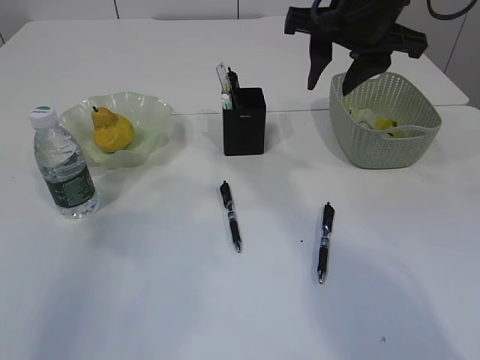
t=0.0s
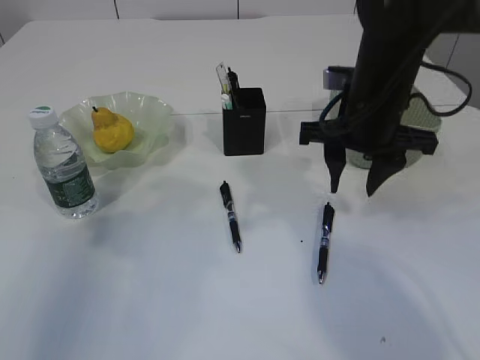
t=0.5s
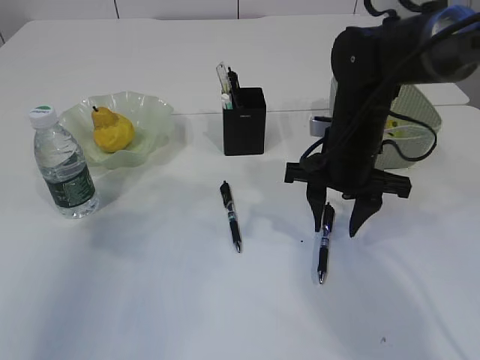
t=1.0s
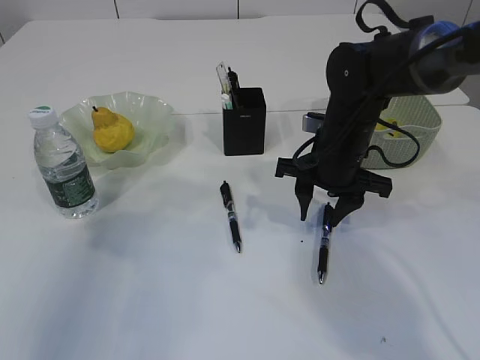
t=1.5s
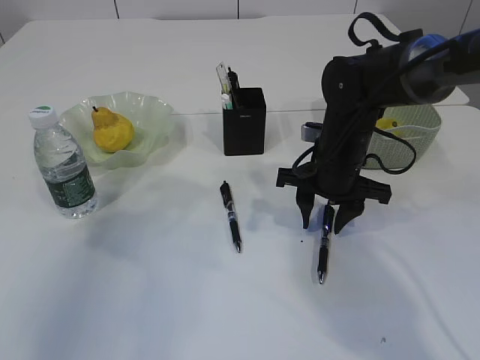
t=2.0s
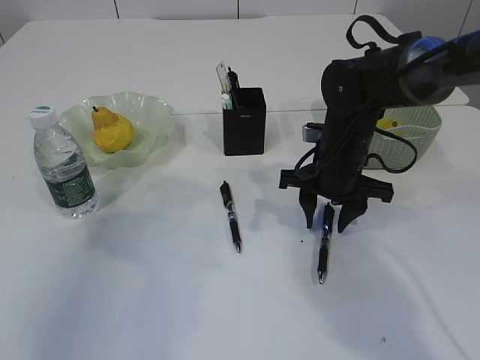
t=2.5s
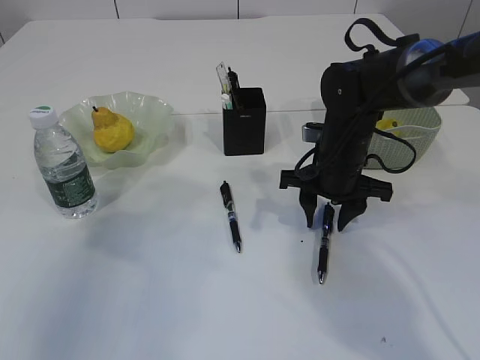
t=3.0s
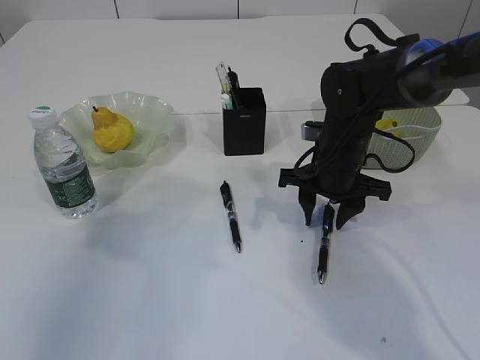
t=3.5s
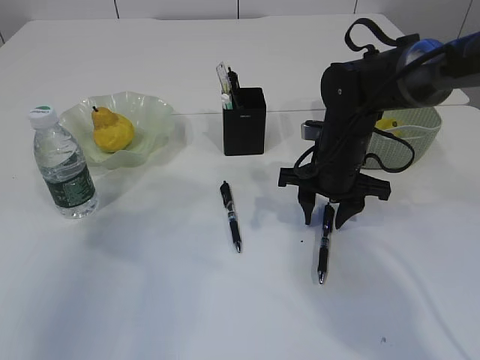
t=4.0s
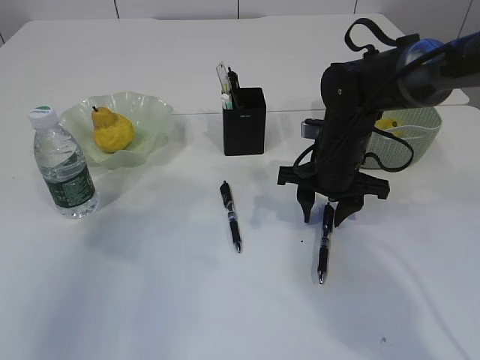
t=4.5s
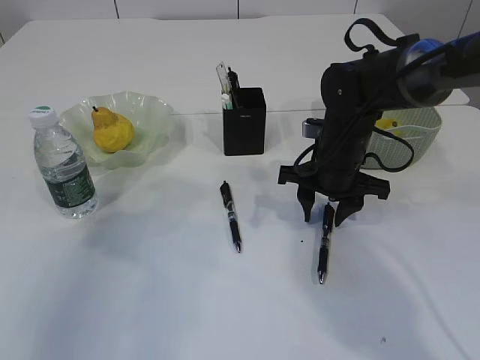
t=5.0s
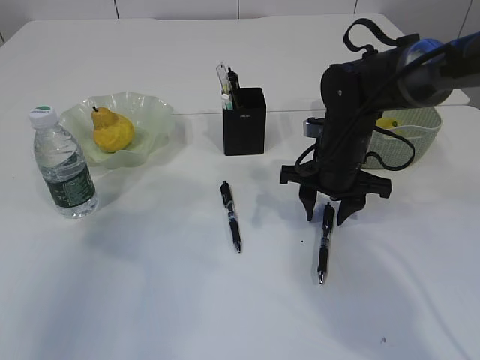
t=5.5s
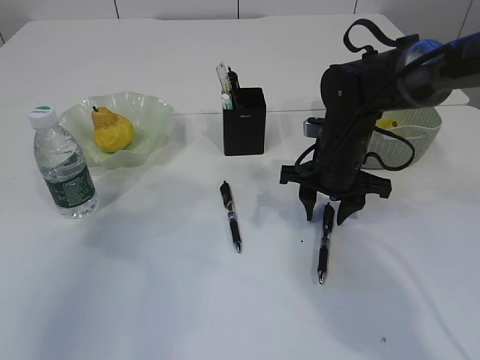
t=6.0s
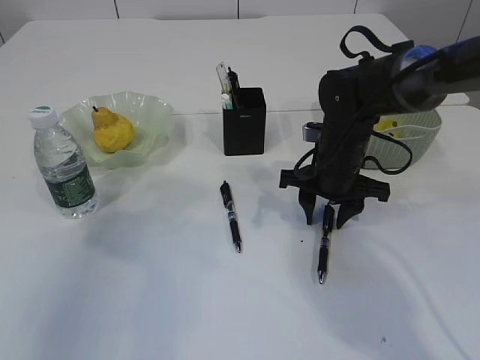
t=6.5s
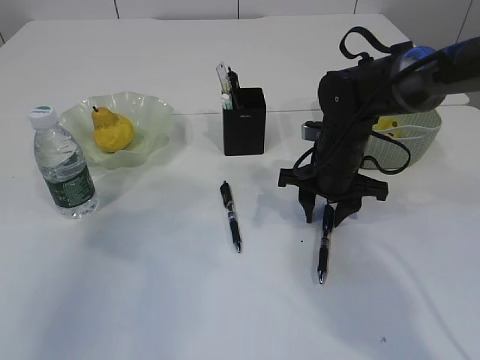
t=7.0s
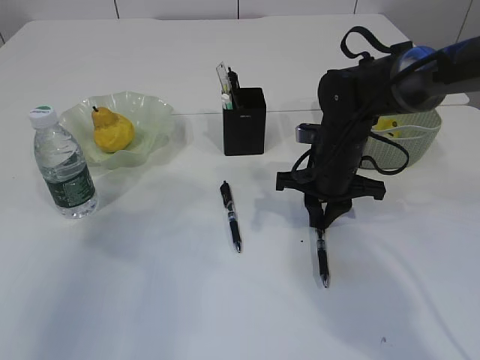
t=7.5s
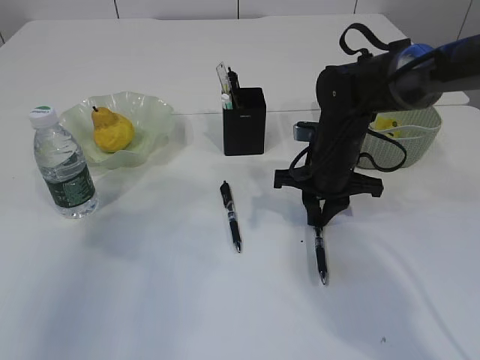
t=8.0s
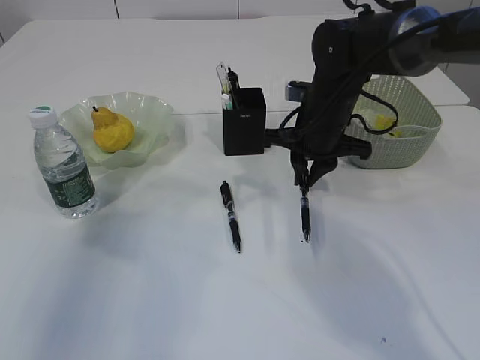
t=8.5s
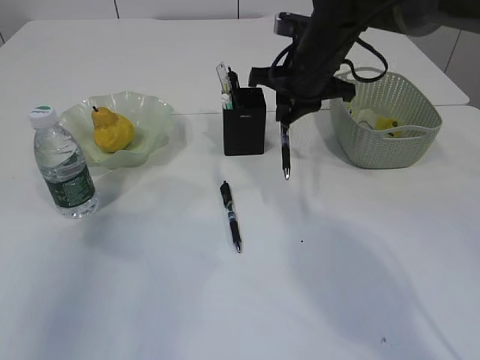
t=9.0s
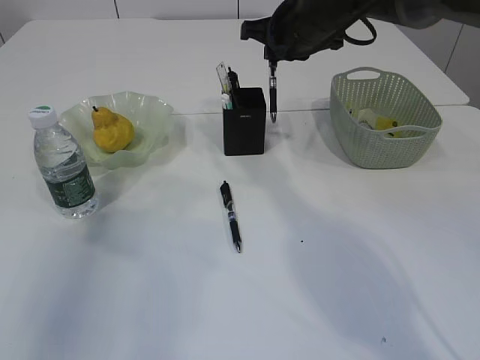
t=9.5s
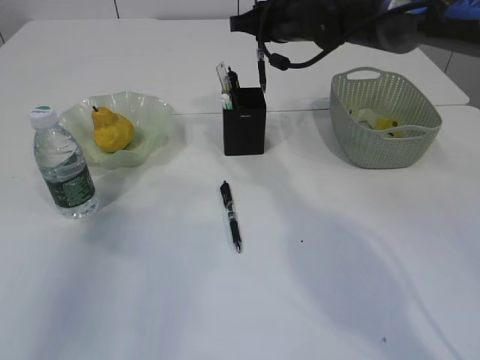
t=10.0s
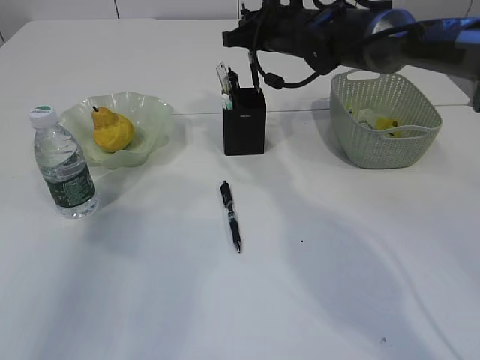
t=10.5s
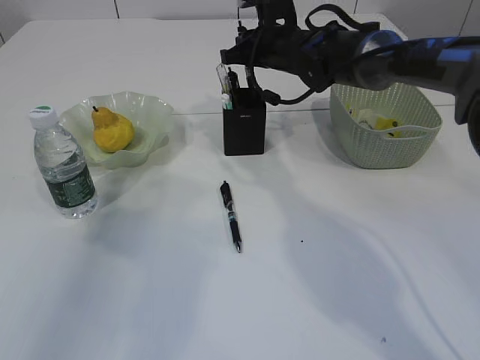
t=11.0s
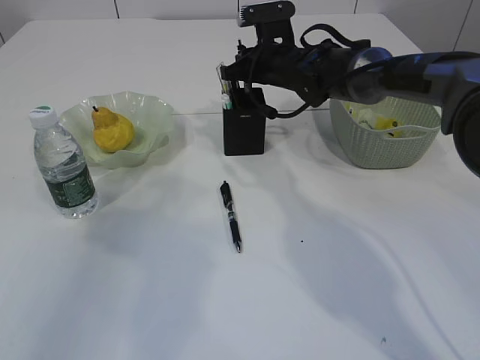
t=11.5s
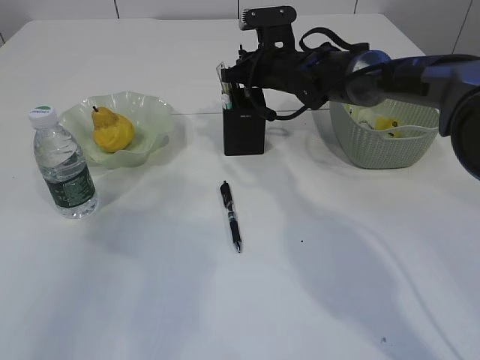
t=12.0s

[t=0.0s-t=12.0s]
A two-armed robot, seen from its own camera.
Step, t=0.0s to t=8.5s: Pick up the pen with right arm.
t=0.0s to t=2.0s: The right gripper moves downward, roughly 20 cm.
t=2.0s to t=4.0s: The two grippers keep their place.
t=4.0s to t=6.0s: Both grippers stay about where they are.
t=6.0s to t=8.0s: The right gripper closes its fingers.
t=8.0s to t=10.0s: The right gripper heads upward and forward, covering some 20 cm.
t=10.0s to t=12.0s: The right gripper is displaced downward by roughly 10 cm.

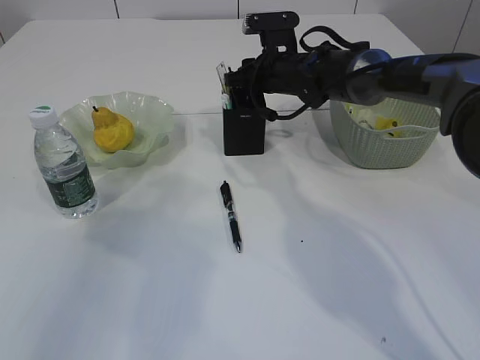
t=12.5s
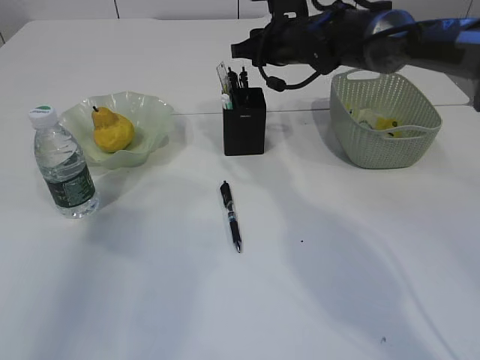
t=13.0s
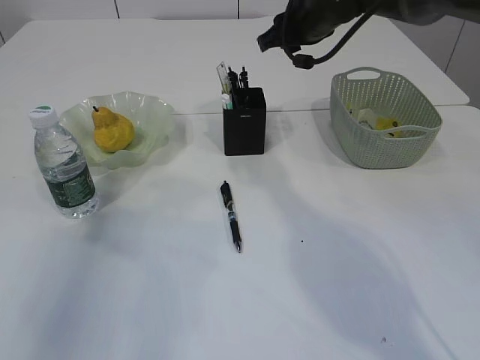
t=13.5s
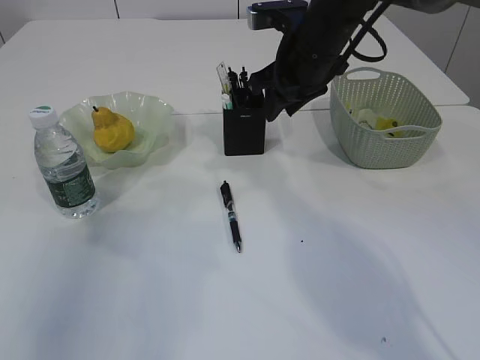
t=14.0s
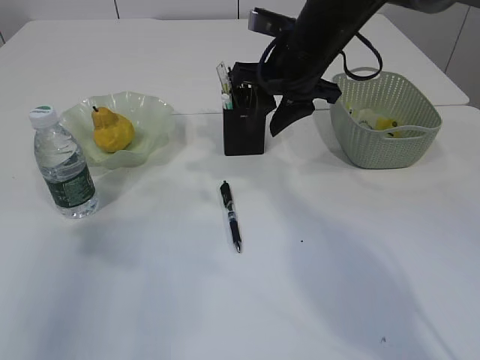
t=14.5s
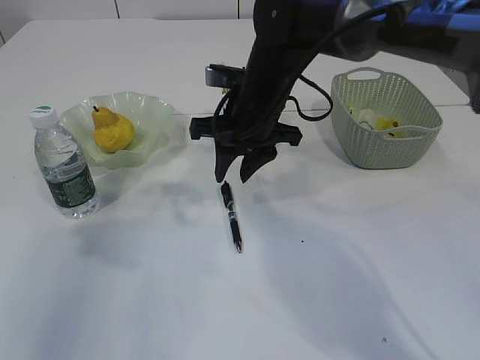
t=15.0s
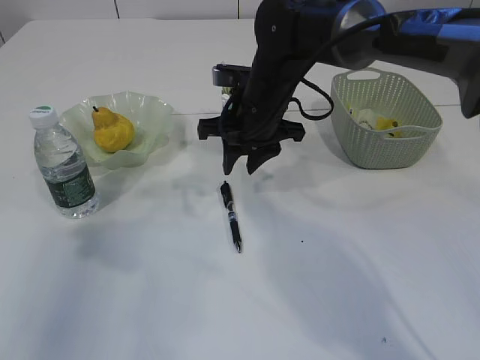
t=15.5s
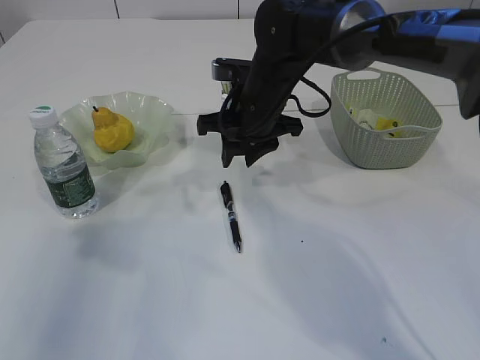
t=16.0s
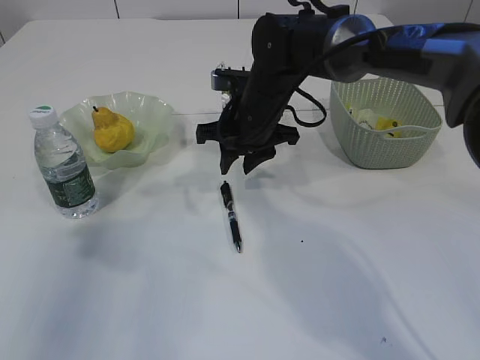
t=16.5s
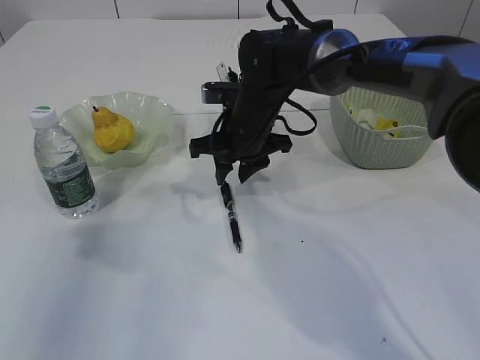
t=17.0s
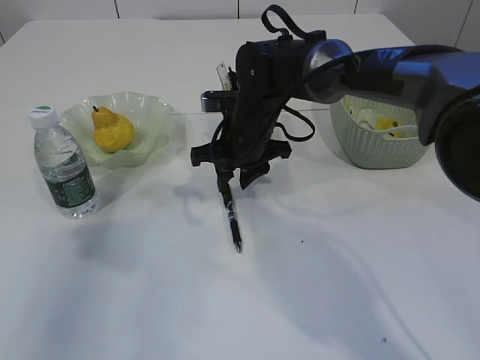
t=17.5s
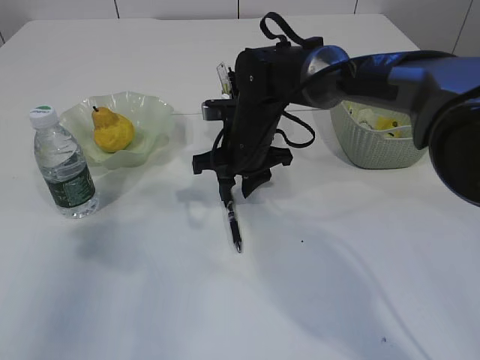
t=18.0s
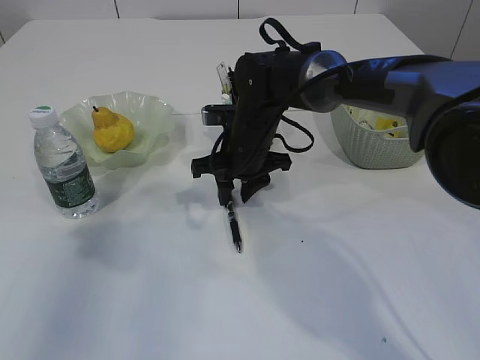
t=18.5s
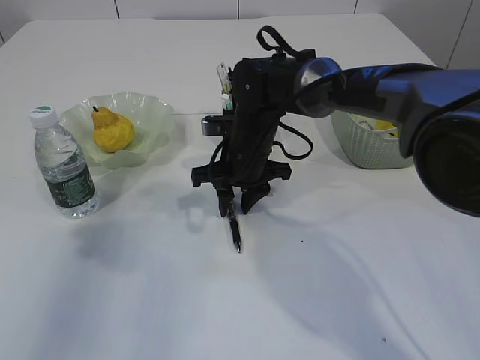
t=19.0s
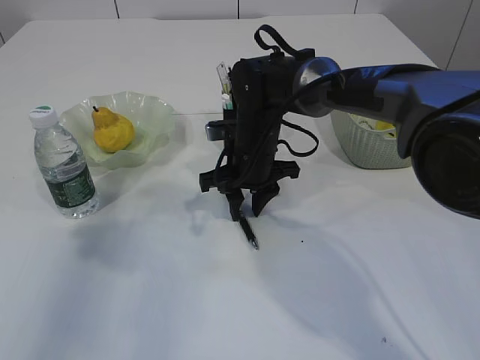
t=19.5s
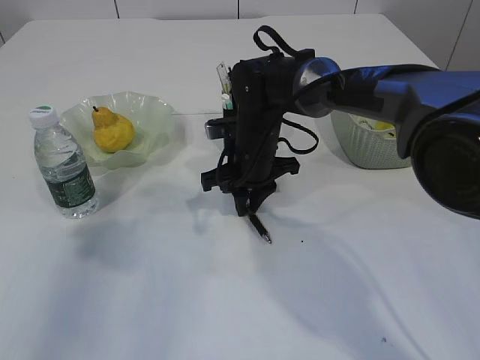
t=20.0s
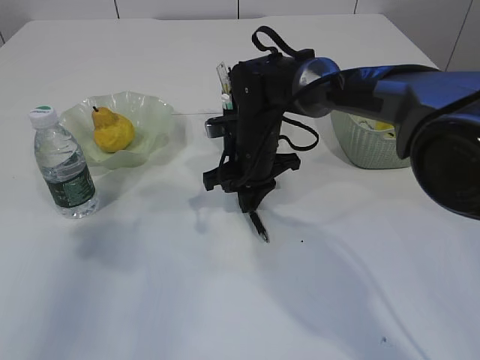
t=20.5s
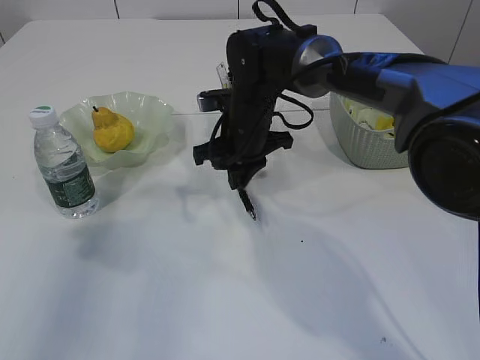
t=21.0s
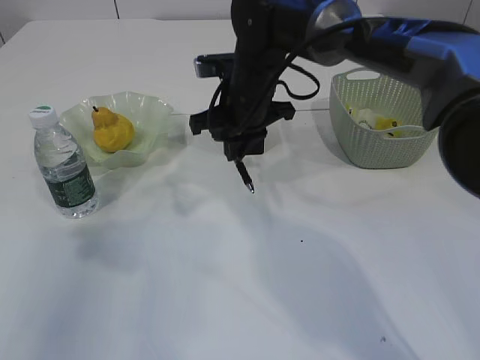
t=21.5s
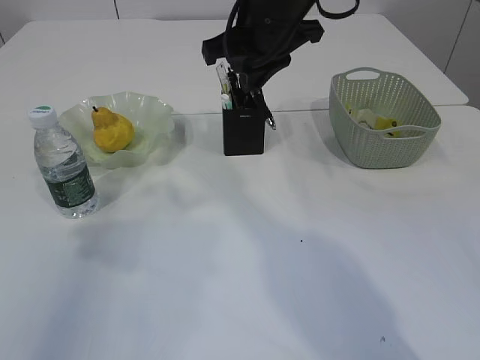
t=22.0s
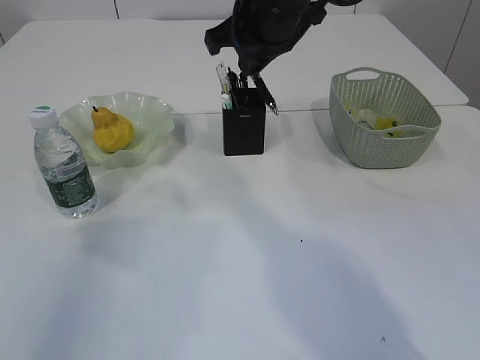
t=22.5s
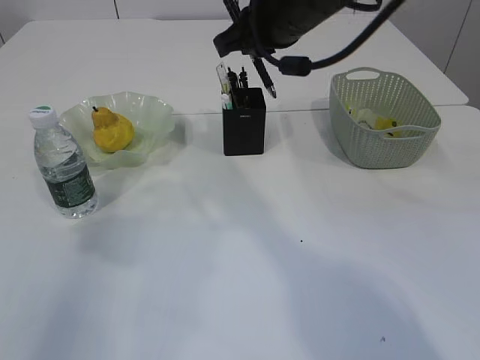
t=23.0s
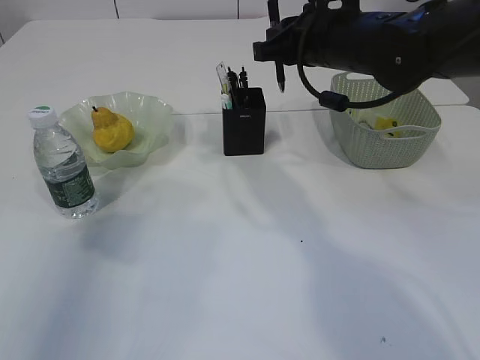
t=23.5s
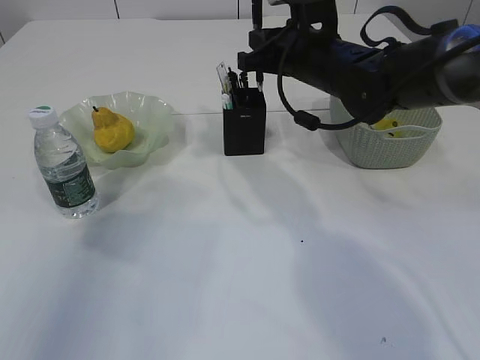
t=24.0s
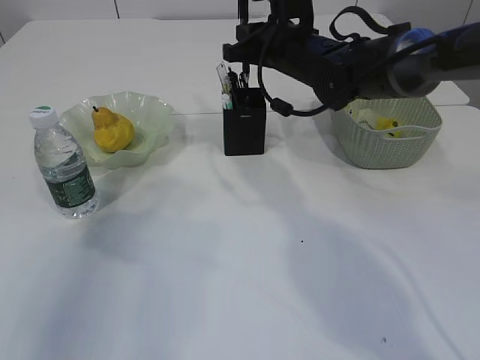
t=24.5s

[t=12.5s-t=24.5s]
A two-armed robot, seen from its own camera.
Step, t=13.5s to t=21.0s: Pick up the pen with right arm.
t=12.5s to t=14.5s: The right gripper shifts roughly 15 cm backward and upward.
t=14.5s to t=16.5s: The right gripper heads downward and to the left, covering roughly 10 cm.
t=16.5s to t=18.5s: The grippers make only small movements.
t=18.5s to t=20.5s: The right gripper closes.
t=20.5s to t=22.5s: The right gripper is displaced upward by roughly 20 cm.
t=22.5s to t=24.5s: The right gripper is displaced downward and forward by roughly 10 cm.

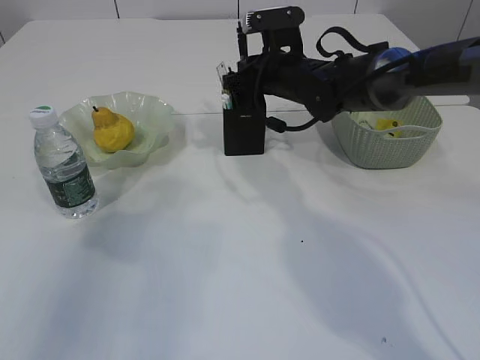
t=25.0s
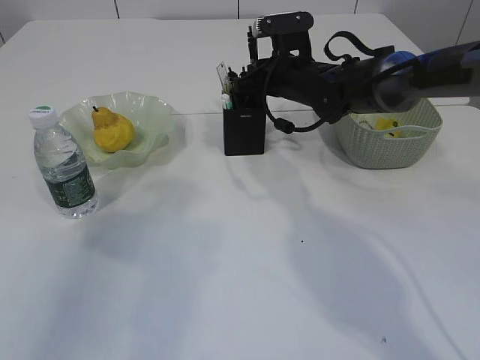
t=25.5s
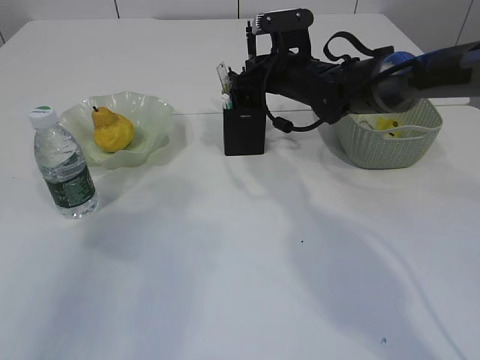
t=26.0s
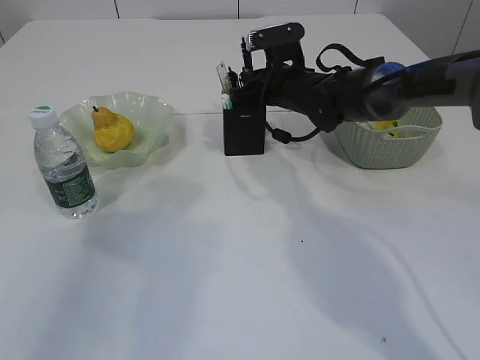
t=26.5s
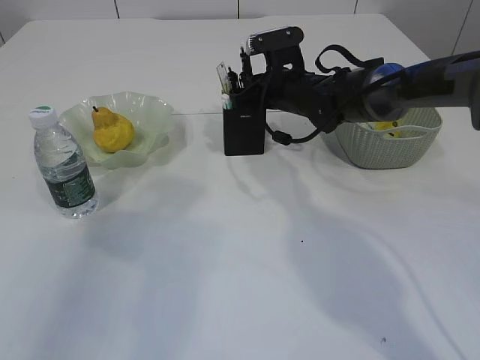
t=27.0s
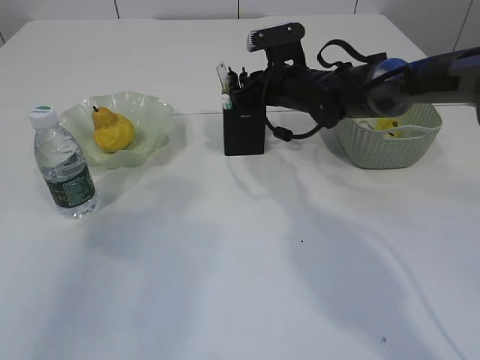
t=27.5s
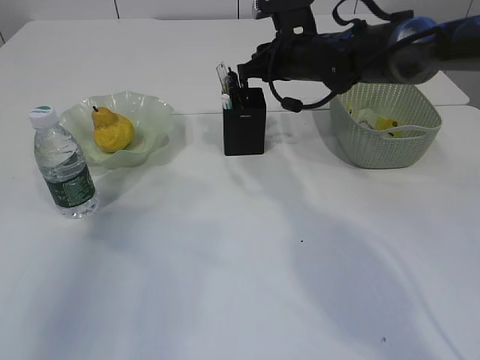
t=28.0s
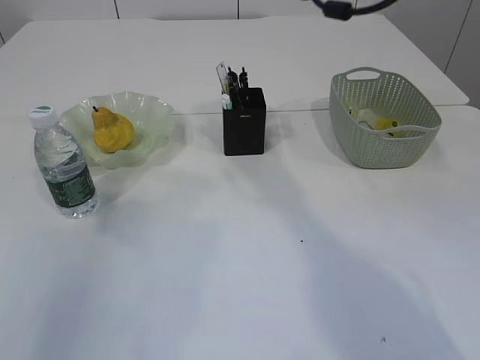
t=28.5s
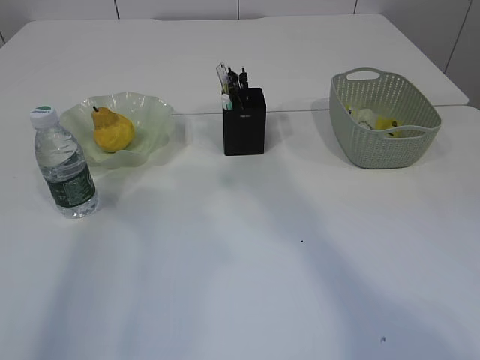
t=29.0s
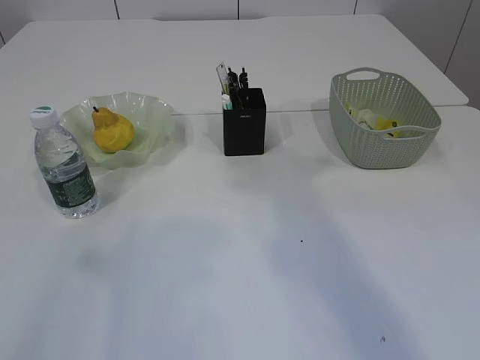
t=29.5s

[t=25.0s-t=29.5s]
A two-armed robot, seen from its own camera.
Step, t=25.0s to t=28.0s: Place the pen into the pen holder.
t=25.0s to t=27.0s: The grippers move only a little.
t=27.0s to t=29.5s: The right gripper is displaced upward and backward by approximately 40 cm. Meanwhile the left gripper travels backward and upward by some 10 cm.
